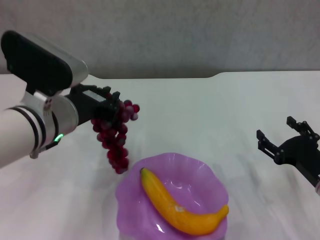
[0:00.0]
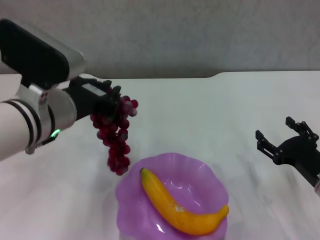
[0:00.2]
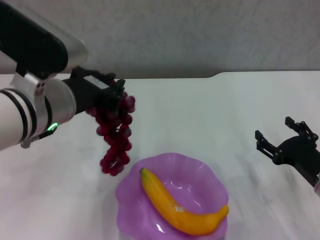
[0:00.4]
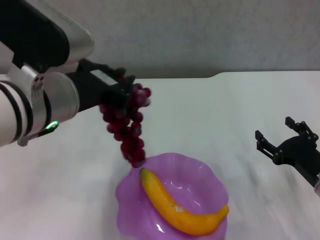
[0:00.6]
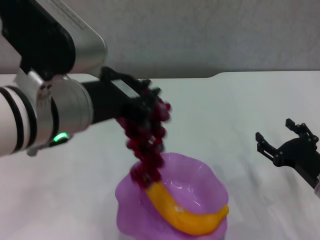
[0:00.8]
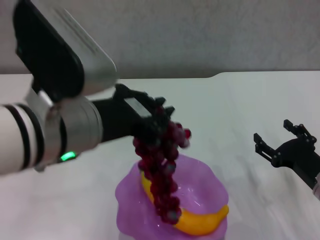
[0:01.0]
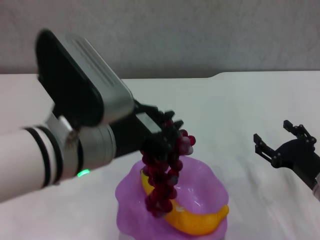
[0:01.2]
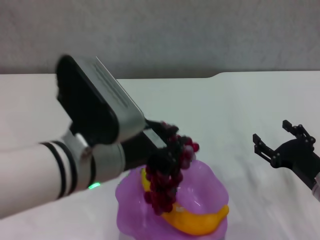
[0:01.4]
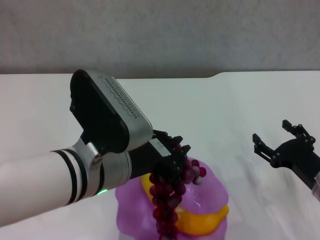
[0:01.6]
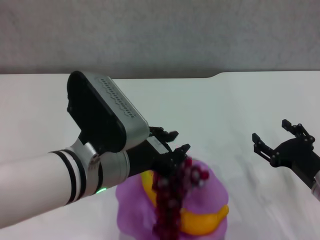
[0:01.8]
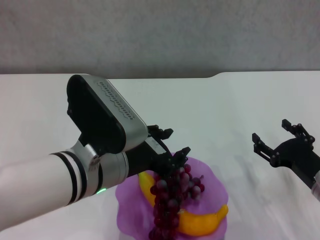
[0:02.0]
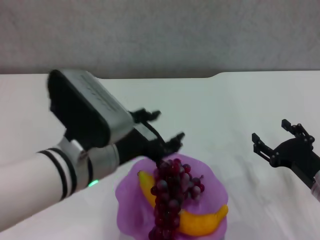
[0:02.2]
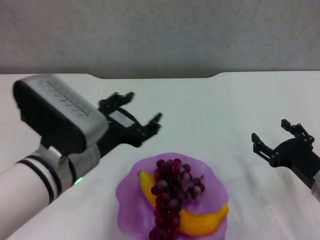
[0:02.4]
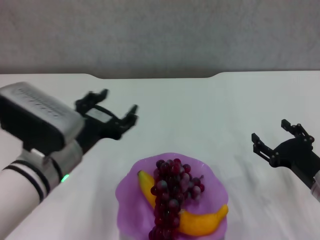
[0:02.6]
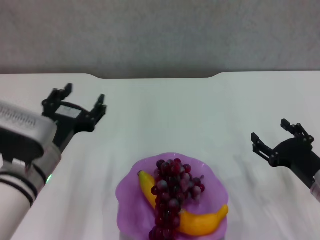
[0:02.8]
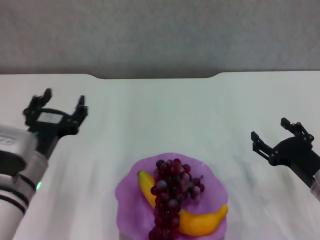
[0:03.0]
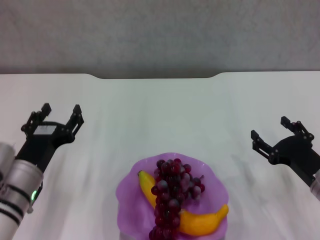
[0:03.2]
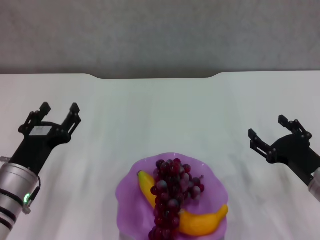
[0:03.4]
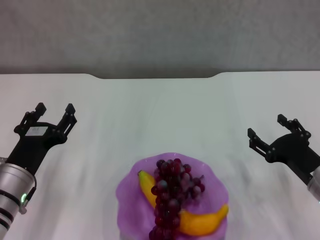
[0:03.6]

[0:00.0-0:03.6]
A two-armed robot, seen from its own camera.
Step, 0:00.0 to 0:02.2: Place the grape in the purple plate with left gripper.
0:00.0 to 0:01.8: The left gripper is displaced backward and to the right by about 10 cm, and moves approximately 10 cm upward and comes back.
0:01.8 to 0:03.6: The left gripper is displaced to the left and downward by about 20 cm, and opens up.
